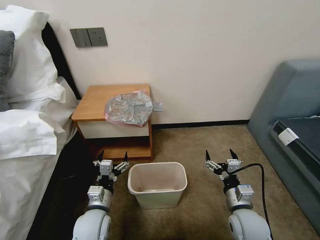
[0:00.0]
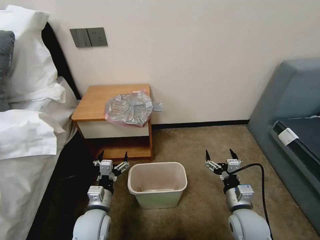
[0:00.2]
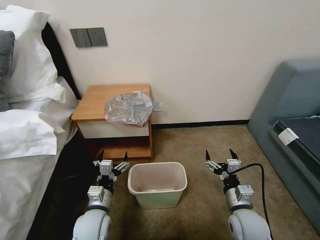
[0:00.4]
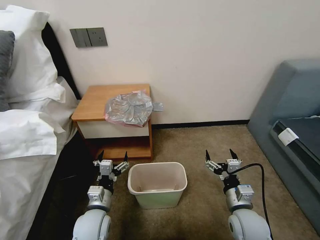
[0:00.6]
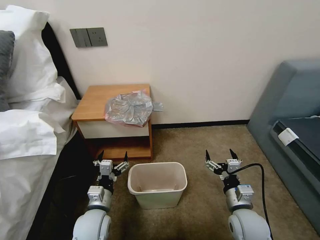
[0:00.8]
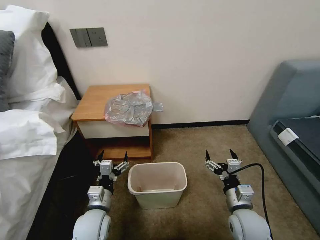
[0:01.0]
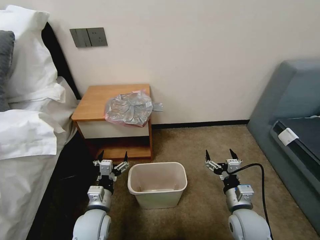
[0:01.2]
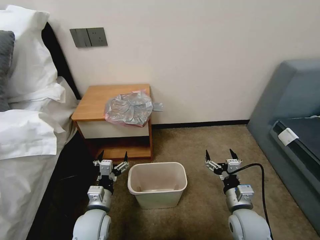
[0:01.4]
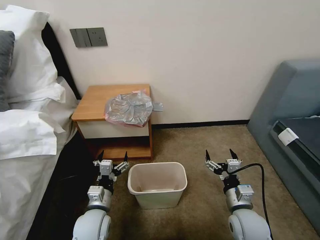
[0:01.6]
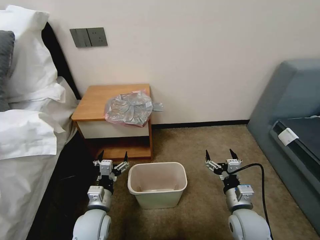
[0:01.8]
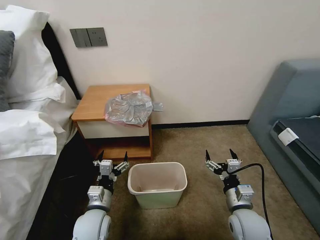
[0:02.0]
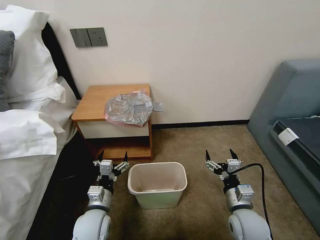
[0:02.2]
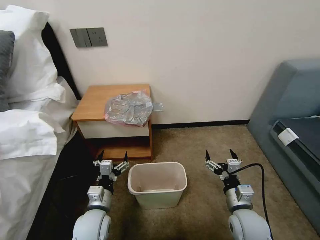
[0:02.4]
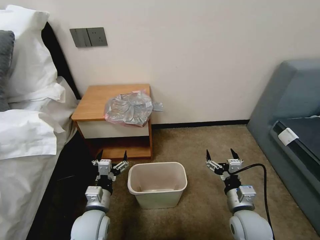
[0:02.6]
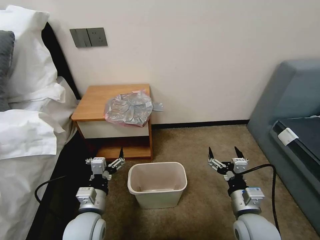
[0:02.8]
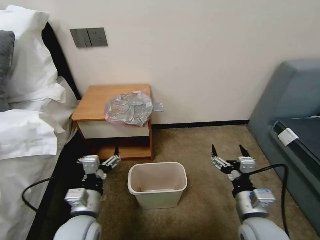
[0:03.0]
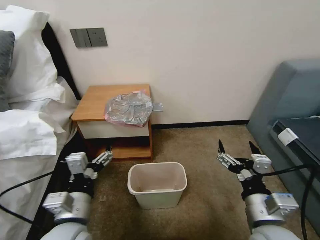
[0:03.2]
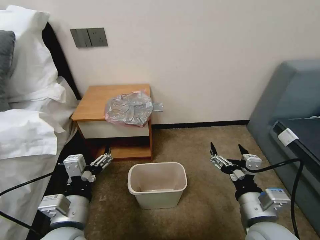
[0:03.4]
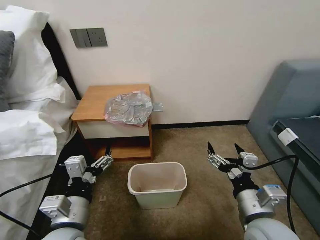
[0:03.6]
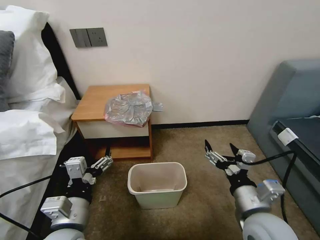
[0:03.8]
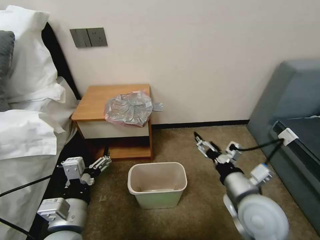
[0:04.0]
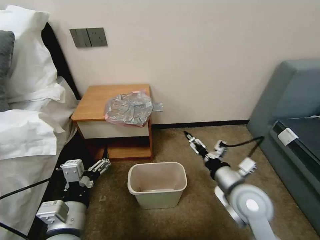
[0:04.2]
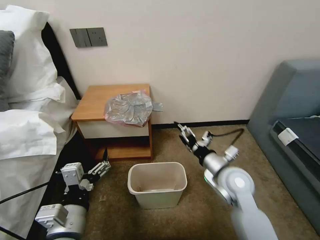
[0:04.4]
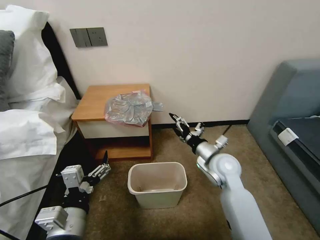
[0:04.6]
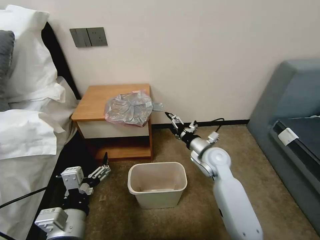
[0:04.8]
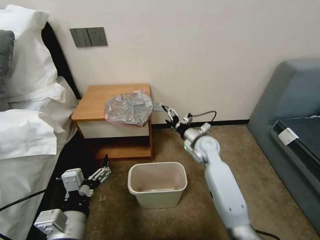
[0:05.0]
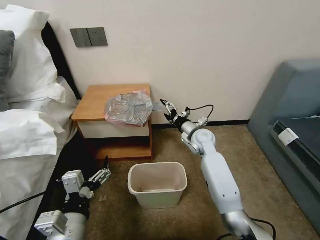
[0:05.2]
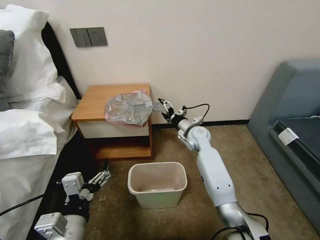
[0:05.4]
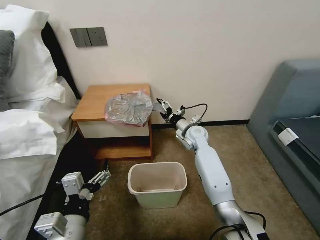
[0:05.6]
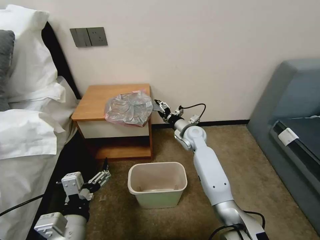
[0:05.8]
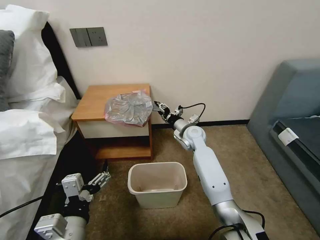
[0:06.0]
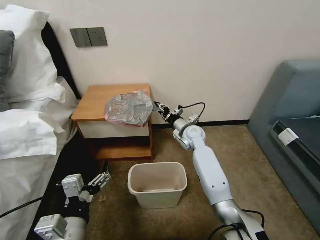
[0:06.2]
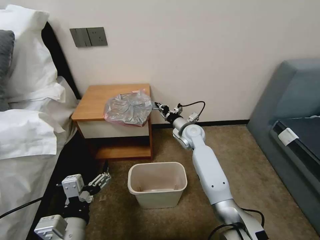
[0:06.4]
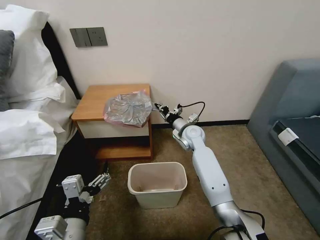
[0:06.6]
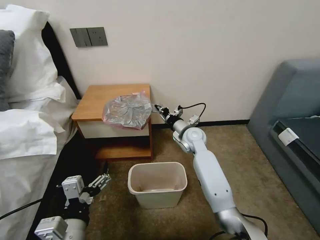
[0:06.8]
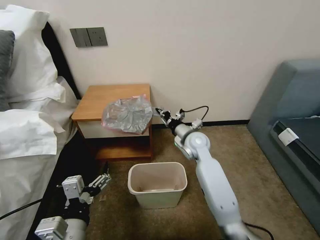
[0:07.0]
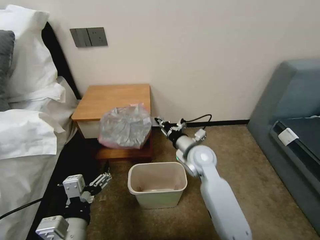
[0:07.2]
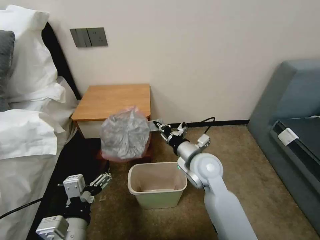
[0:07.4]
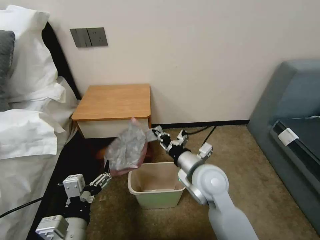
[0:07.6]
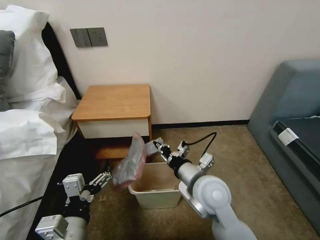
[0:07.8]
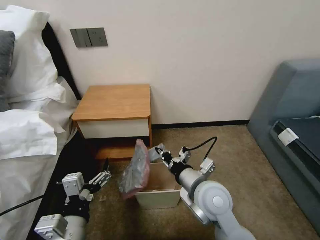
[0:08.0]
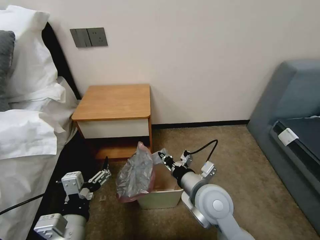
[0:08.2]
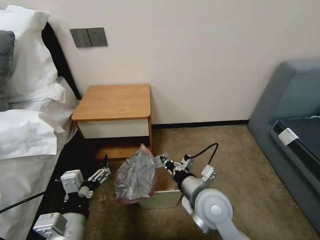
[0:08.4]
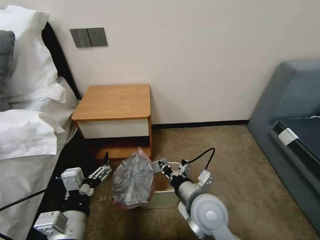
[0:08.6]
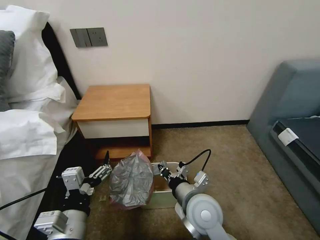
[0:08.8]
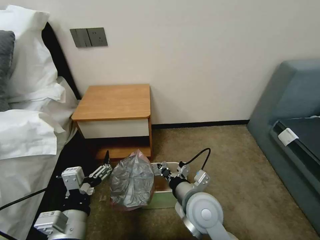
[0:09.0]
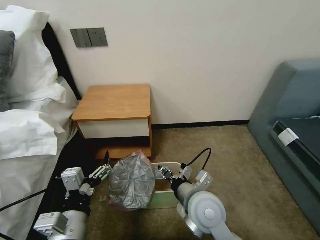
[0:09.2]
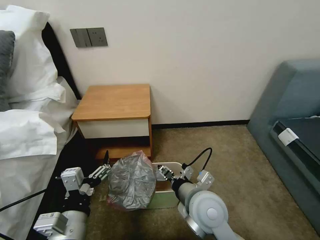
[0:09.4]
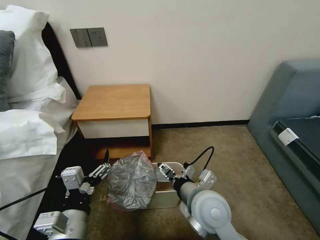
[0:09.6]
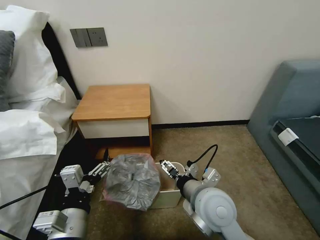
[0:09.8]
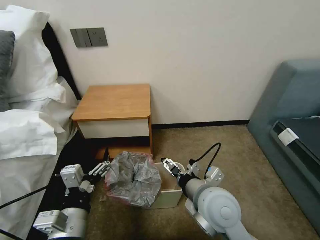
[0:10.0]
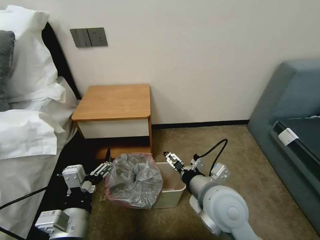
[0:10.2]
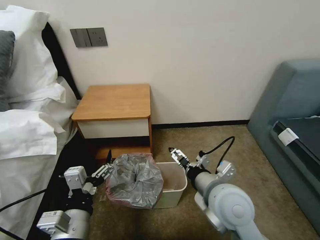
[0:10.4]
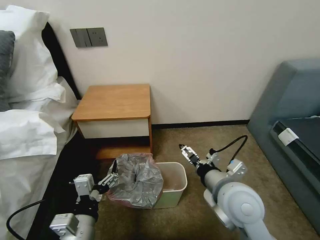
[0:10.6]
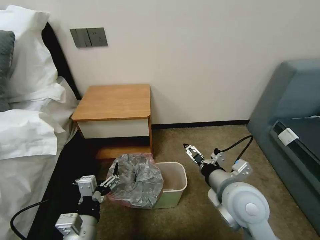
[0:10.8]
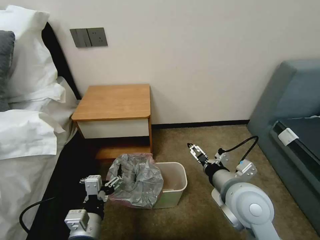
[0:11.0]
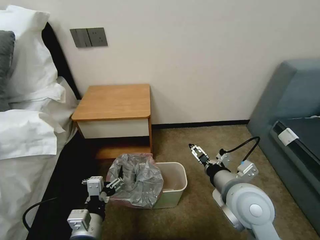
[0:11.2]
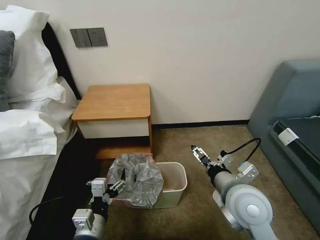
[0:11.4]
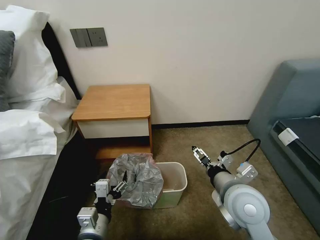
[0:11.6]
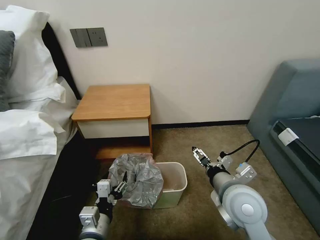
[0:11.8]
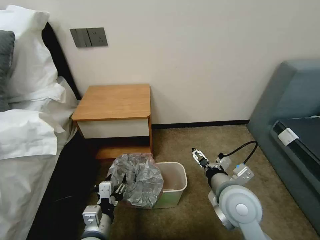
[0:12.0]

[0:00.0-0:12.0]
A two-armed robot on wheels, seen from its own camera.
Task of the whole recording: Pick up the garbage bag from the table and place it over the trash can.
0:01.6 to 0:03.0: Both grippers travel together upward, about 10 cm.
0:03.0 to 0:04.4: The right gripper shifts approximately 15 cm forward. Meanwhile the left gripper is displaced backward by approximately 5 cm.
0:04.4 to 0:06.0: The right gripper shifts about 20 cm forward, and closes.
0:06.0 to 0:07.6: The right gripper moves backward, approximately 20 cm, and closes up.
0:07.6 to 0:09.0: The right gripper moves backward, approximately 5 cm.
0:09.0 to 0:10.4: The right gripper shifts roughly 5 cm upward, and opens.
0:10.4 to 0:12.0: The left gripper travels downward by about 10 cm, and closes up.

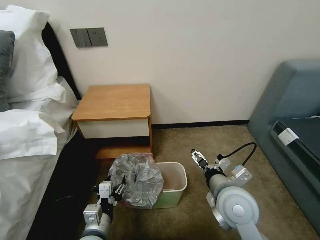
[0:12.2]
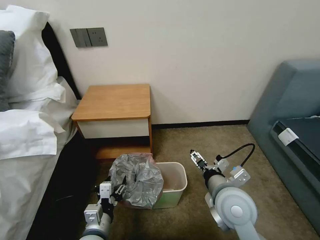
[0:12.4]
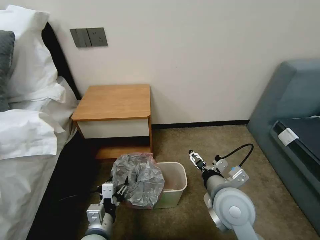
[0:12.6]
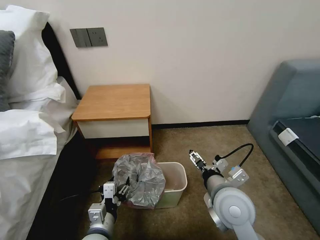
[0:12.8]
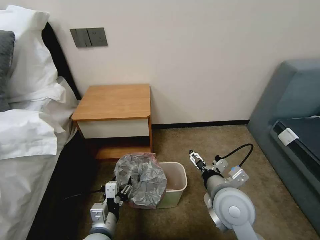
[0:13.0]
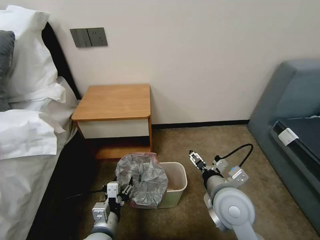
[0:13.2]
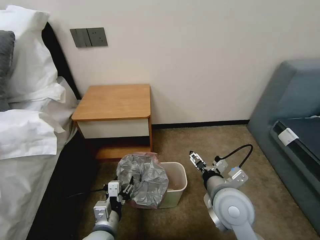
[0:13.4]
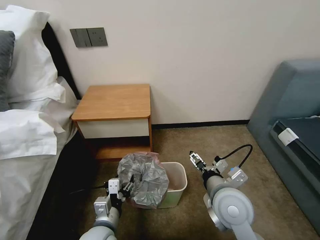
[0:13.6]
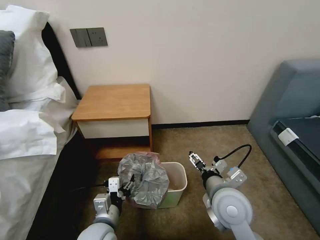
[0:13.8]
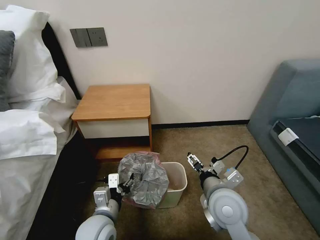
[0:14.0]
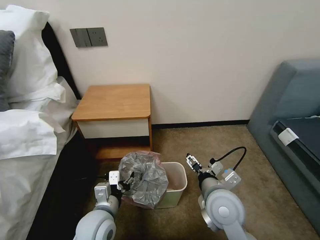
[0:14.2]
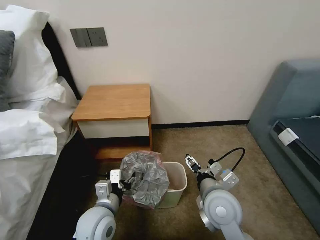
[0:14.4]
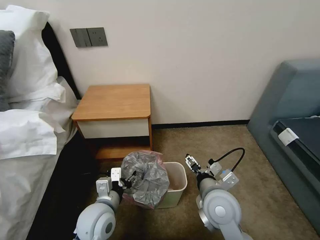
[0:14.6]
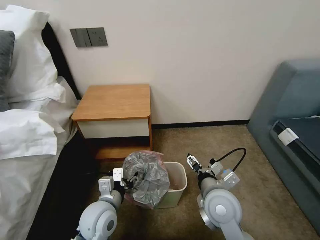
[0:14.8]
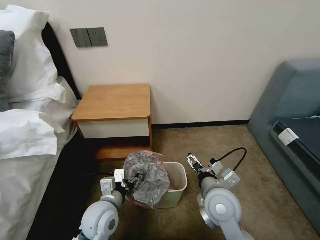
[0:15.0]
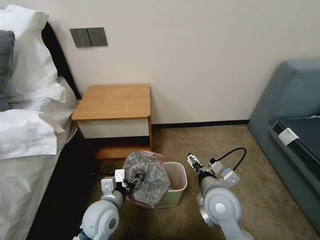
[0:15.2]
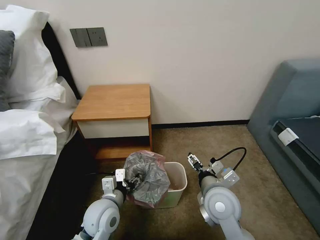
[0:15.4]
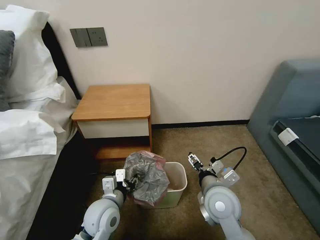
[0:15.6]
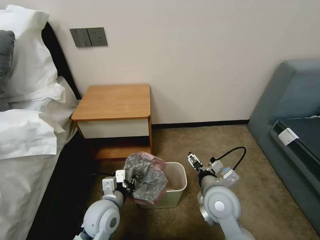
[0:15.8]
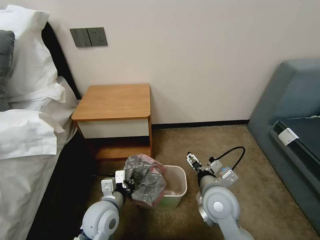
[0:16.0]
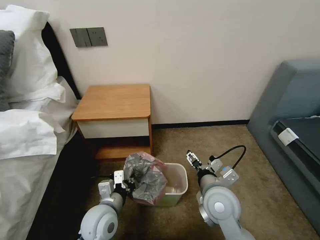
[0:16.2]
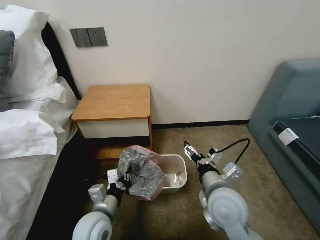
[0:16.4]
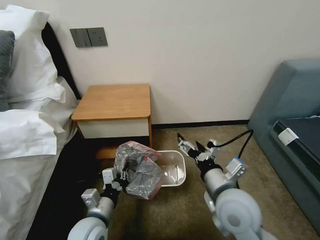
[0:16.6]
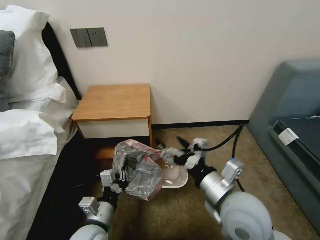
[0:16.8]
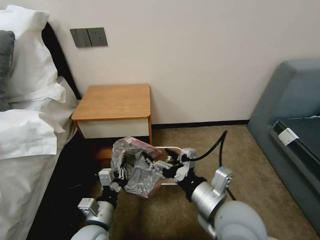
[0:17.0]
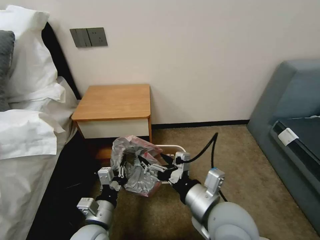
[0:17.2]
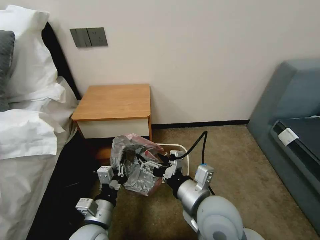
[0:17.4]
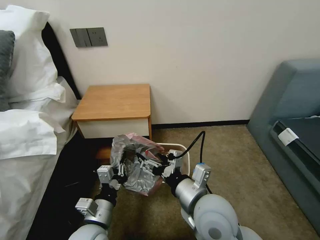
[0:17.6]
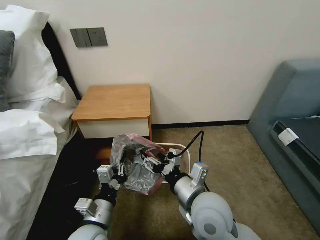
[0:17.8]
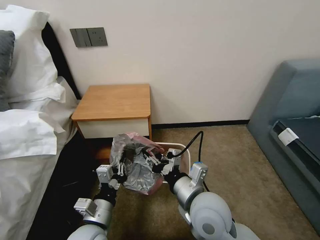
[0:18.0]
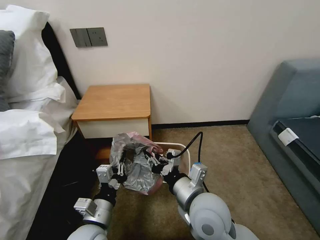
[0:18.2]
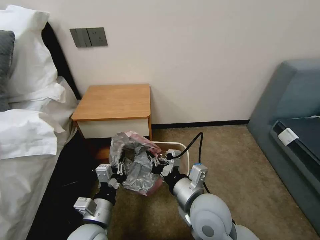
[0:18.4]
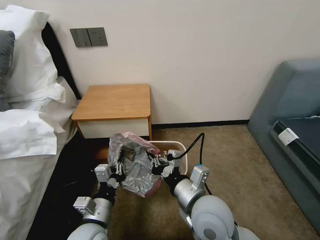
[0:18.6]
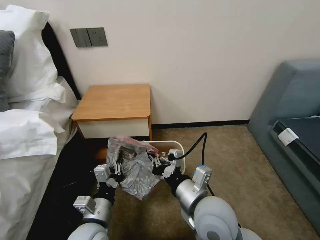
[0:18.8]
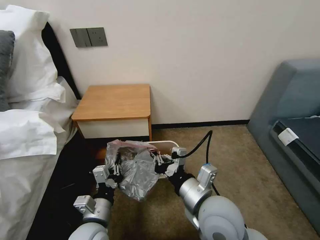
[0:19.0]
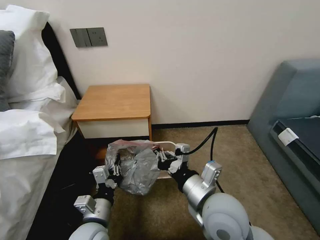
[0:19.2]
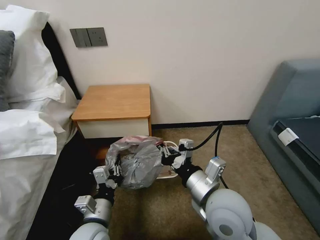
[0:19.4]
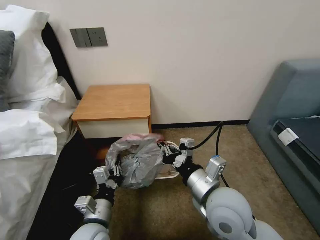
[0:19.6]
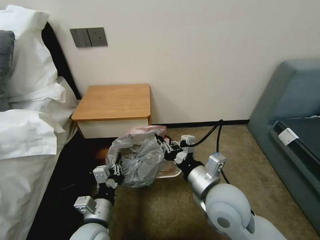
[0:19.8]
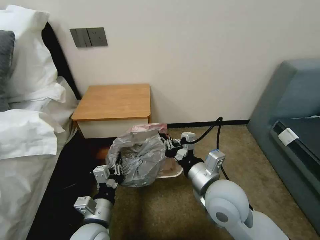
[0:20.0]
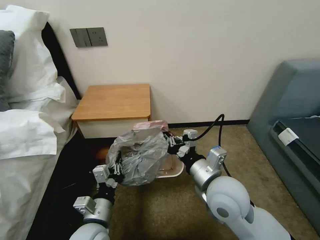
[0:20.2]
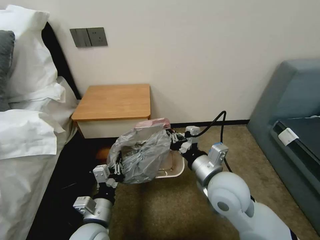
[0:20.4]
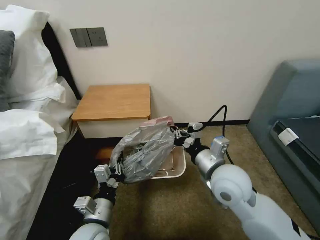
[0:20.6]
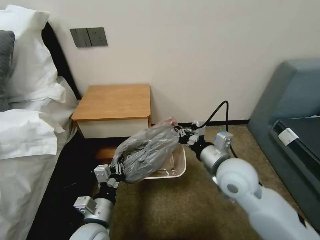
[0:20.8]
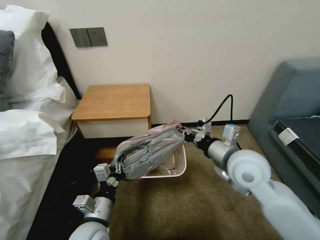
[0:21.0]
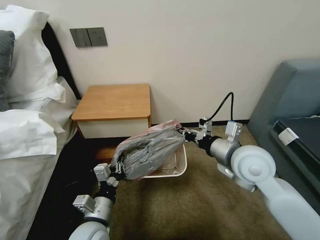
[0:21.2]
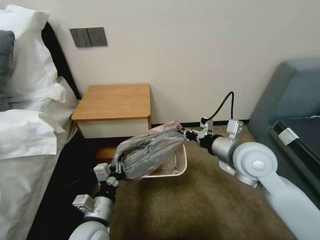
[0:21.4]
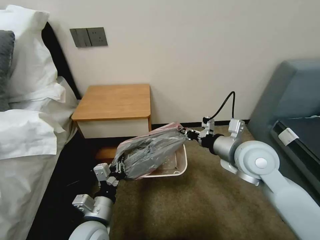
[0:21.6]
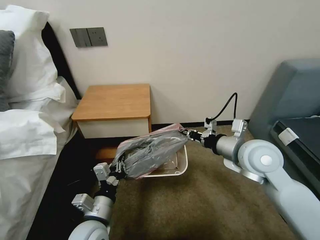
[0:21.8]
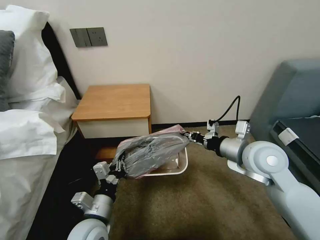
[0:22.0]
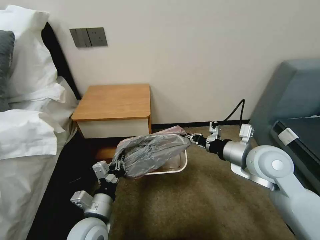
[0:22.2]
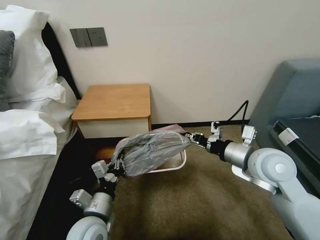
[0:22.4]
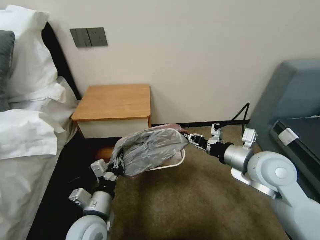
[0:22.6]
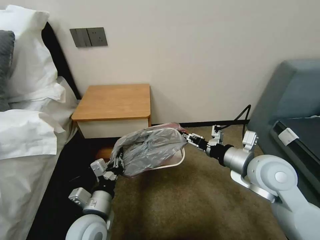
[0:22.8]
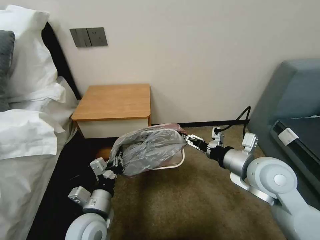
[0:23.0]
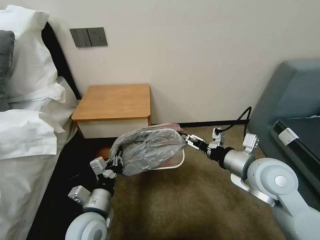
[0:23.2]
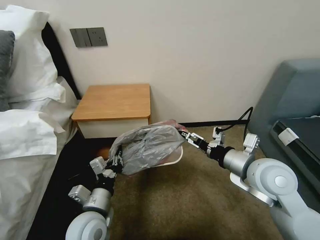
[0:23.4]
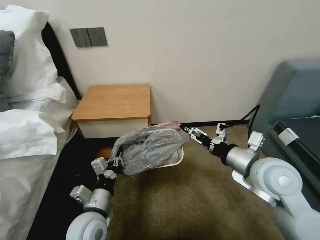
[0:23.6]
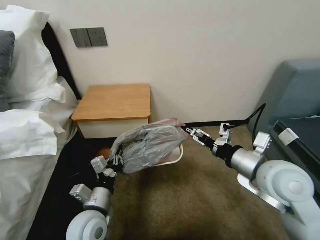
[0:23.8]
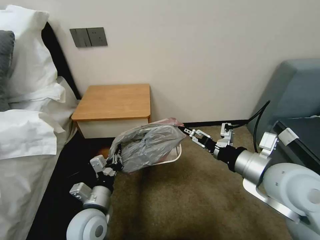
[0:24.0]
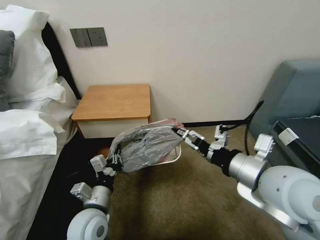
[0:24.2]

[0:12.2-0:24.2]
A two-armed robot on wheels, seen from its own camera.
Task of the whole recording: Pick up the garbage bag from the table and place it over the trash can.
0:12.2 to 0:13.8: The grippers make only small movements.
0:13.8 to 0:15.2: The left gripper shifts some 5 cm forward.
0:15.2 to 0:16.6: The right gripper goes some 5 cm upward, while the left gripper changes place by about 5 cm, and closes its fingers.
0:16.6 to 0:18.2: The right gripper is displaced to the left by approximately 5 cm, and closes its fingers.
0:18.2 to 0:19.8: The grippers stay close to where they were, moving slightly.
0:19.8 to 0:21.2: The right gripper is displaced forward and to the right by approximately 10 cm.
0:22.6 to 0:24.2: The right gripper goes roughly 10 cm backward and upward, and opens up.
